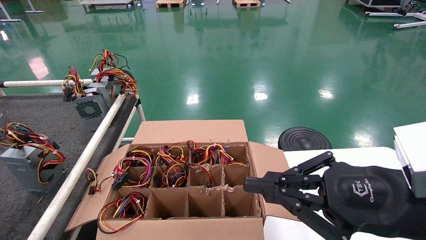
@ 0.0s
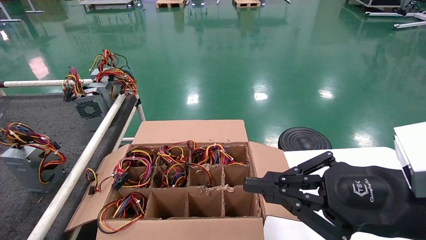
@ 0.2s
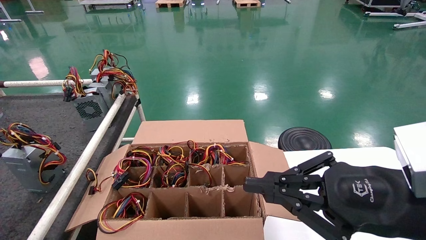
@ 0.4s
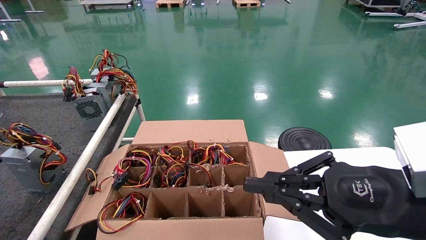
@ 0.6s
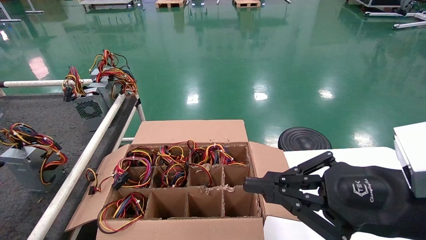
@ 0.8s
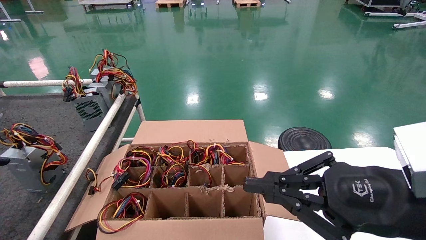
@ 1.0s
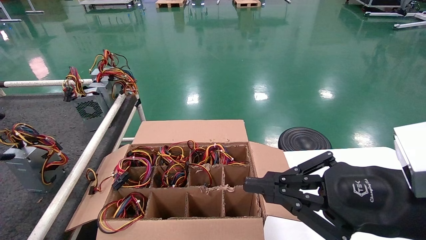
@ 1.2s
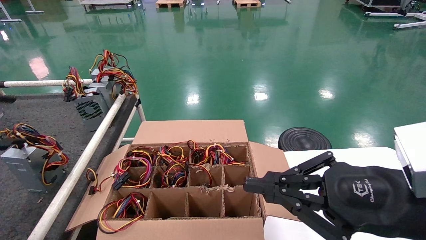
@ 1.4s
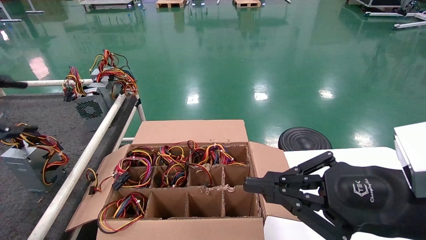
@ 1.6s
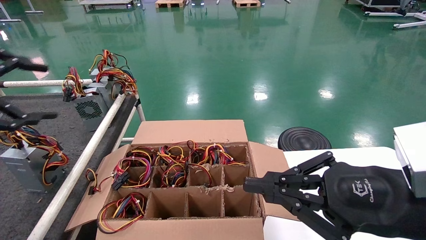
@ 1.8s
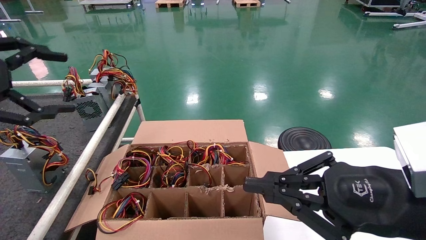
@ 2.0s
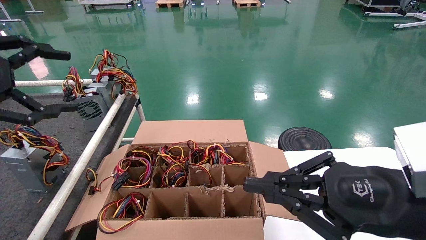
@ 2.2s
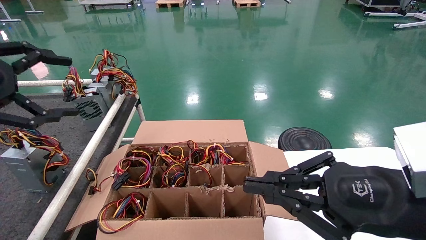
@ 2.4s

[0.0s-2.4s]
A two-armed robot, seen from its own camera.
1.2s to 2.4s: The left gripper is displaced to the right and upward by some 10 cm.
